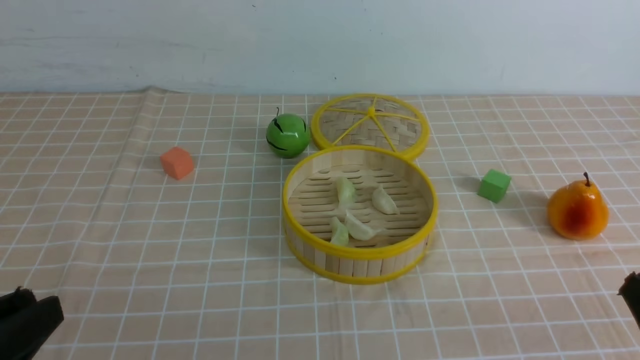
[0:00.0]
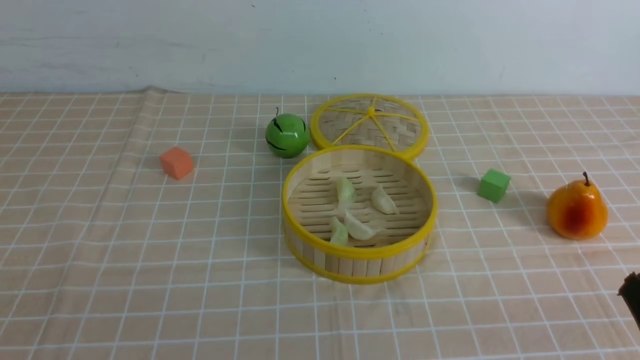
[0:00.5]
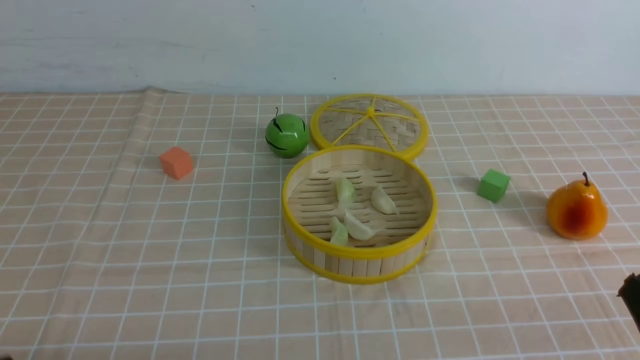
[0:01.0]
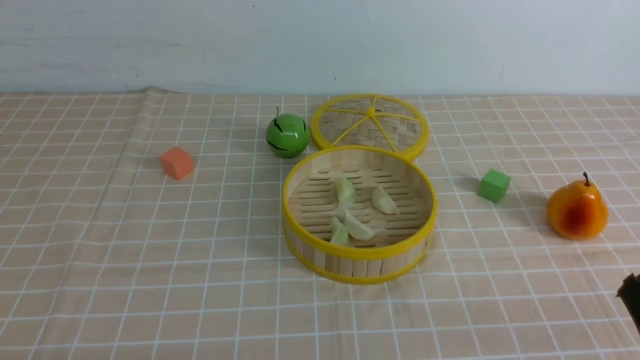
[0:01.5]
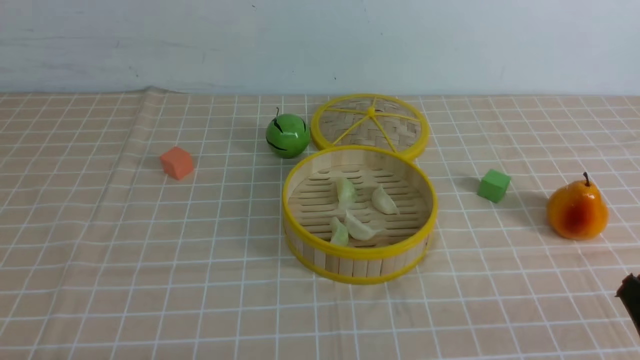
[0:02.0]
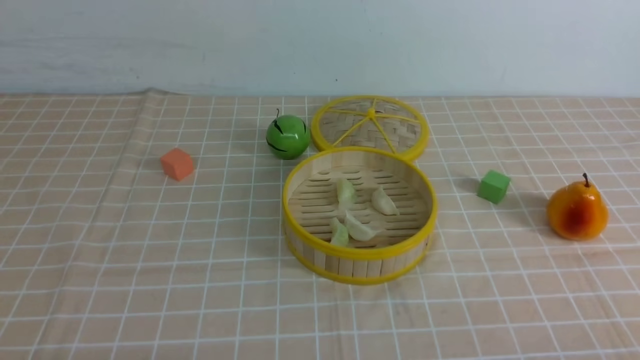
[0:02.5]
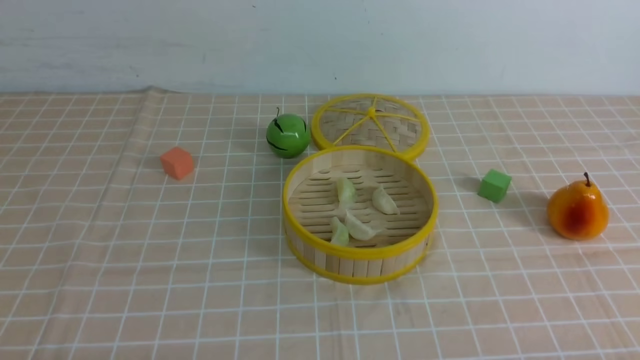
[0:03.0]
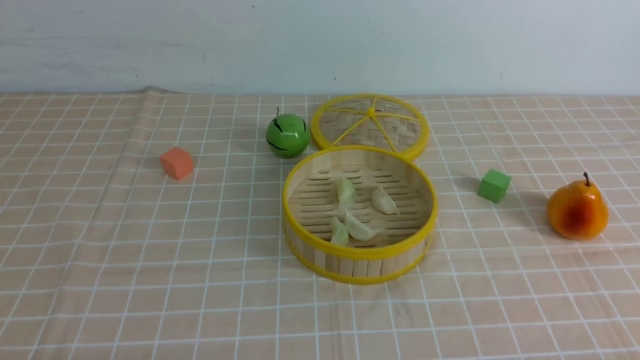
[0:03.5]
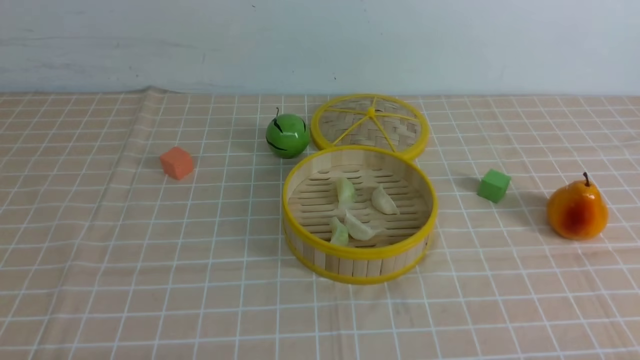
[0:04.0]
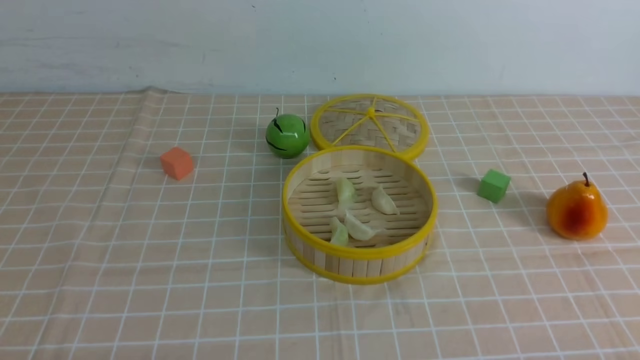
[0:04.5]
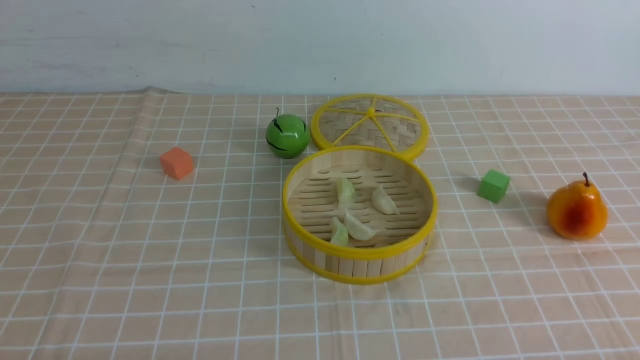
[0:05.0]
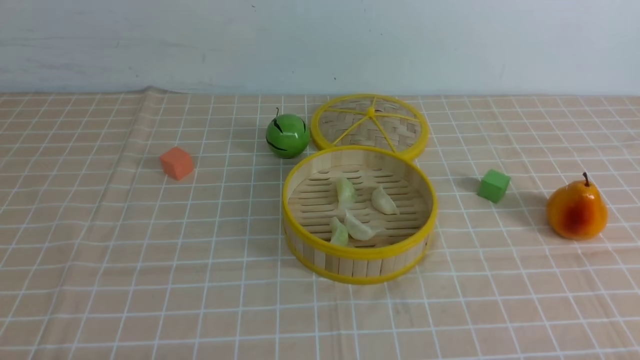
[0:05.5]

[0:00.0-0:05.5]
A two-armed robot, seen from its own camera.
Task of the whole recording: put the dumplings into the steamer on the table with the brown tablecloth.
0:00.0 to 0:02.0: The left gripper travels downward by about 10 cm, and closes.
0:03.5 to 0:05.5: Both grippers stay about where they are.

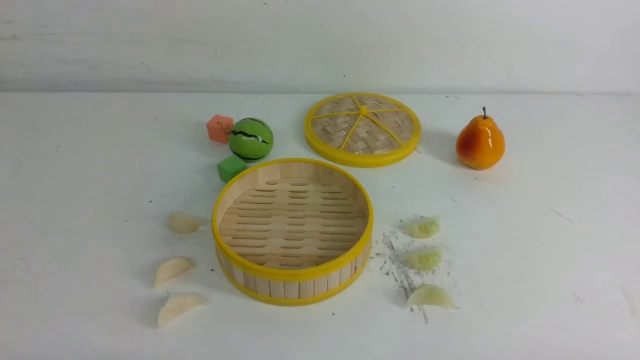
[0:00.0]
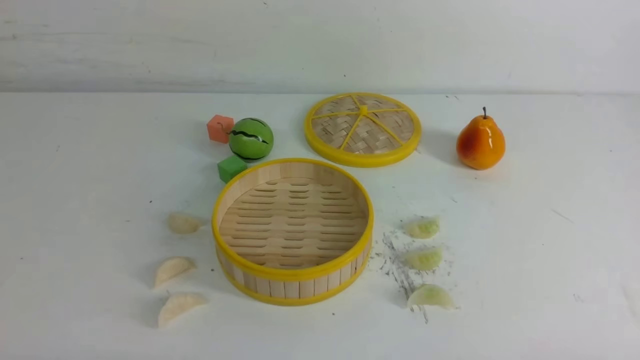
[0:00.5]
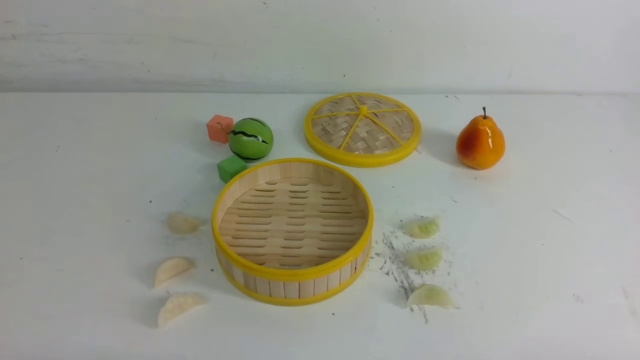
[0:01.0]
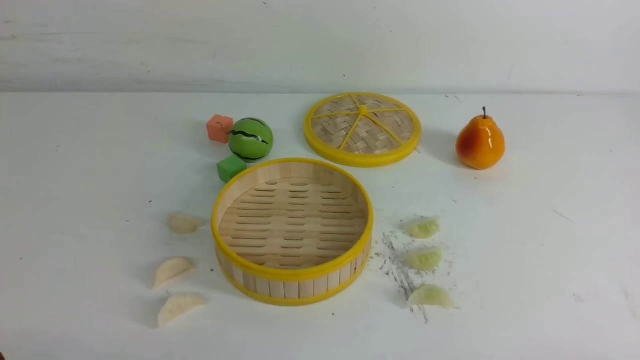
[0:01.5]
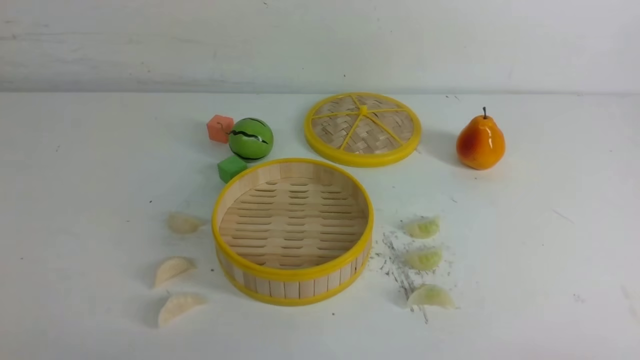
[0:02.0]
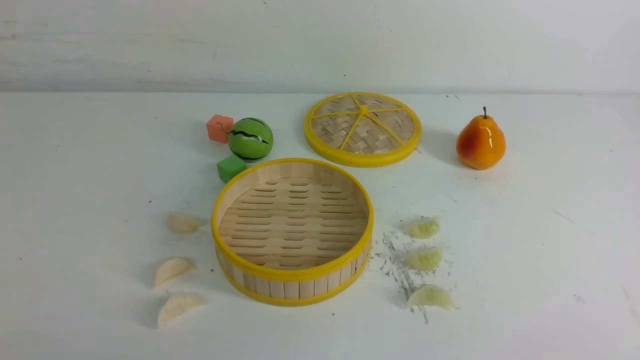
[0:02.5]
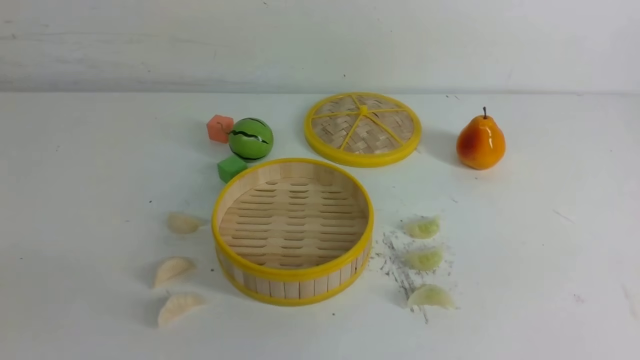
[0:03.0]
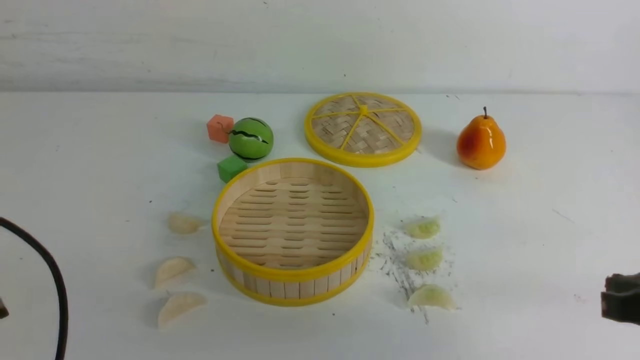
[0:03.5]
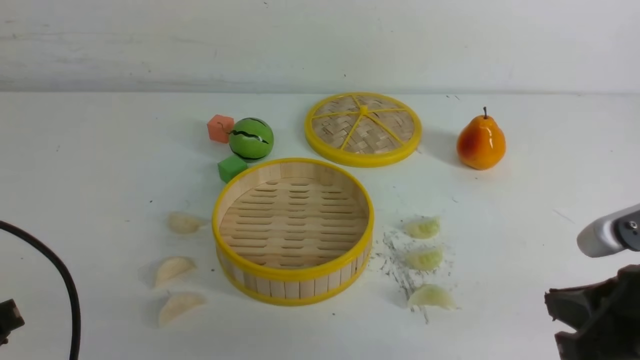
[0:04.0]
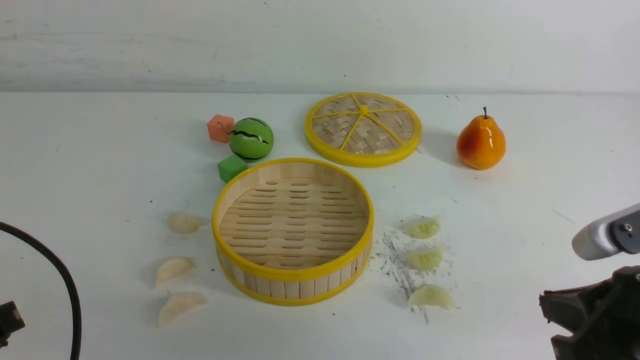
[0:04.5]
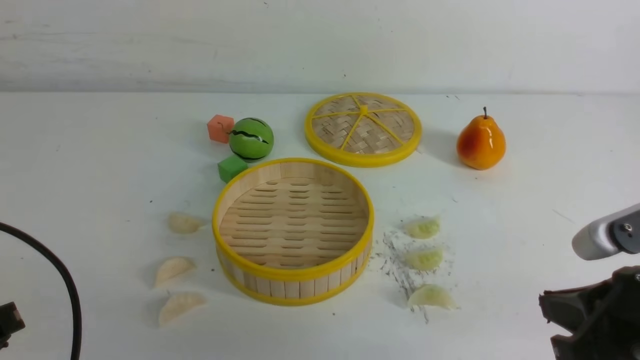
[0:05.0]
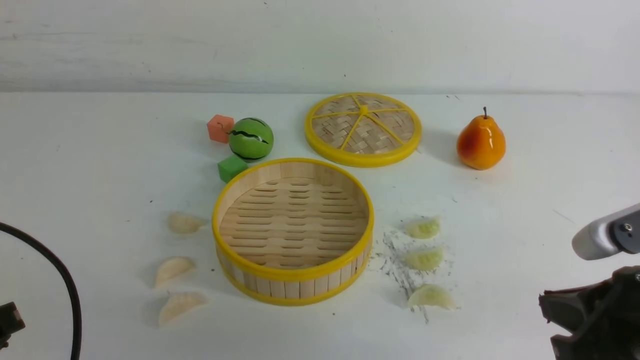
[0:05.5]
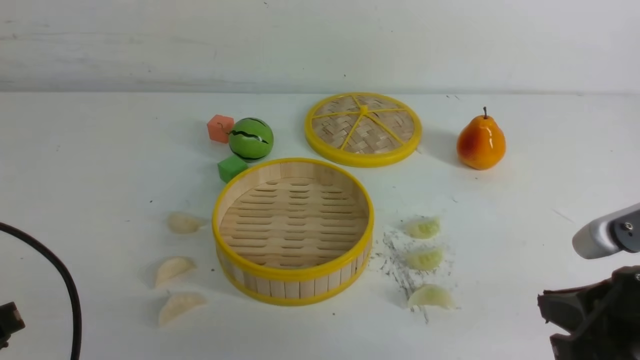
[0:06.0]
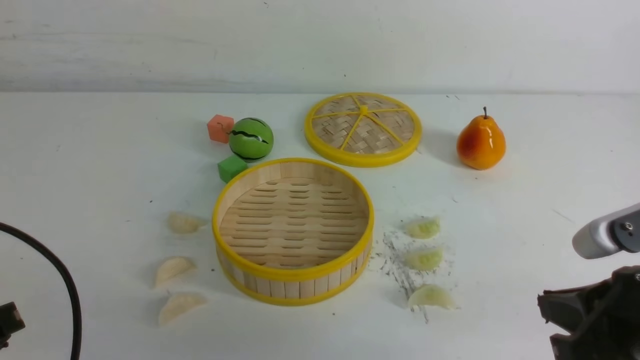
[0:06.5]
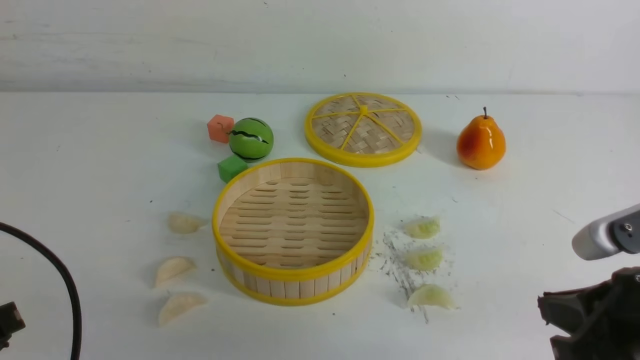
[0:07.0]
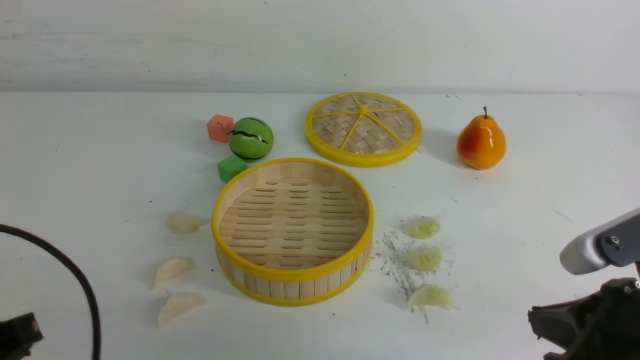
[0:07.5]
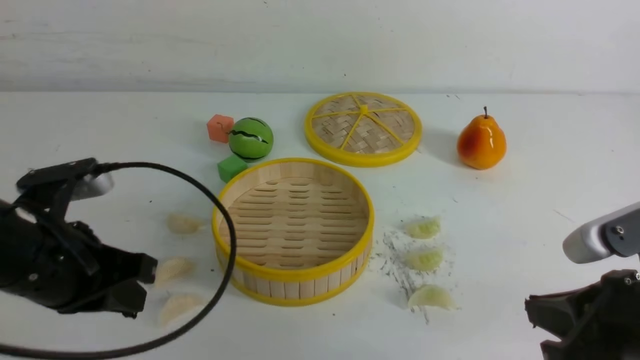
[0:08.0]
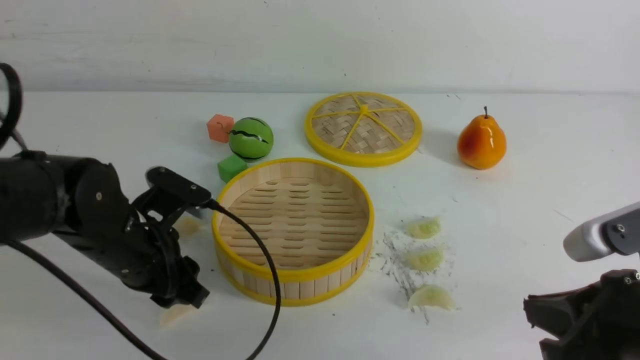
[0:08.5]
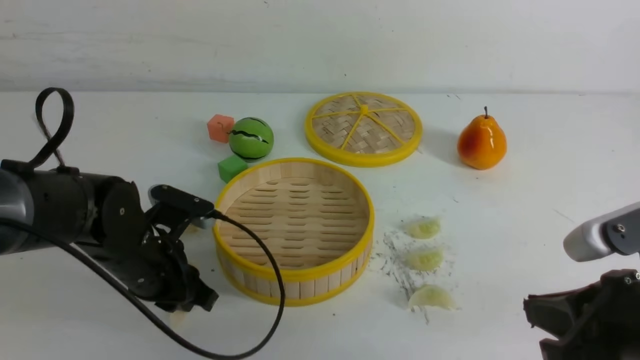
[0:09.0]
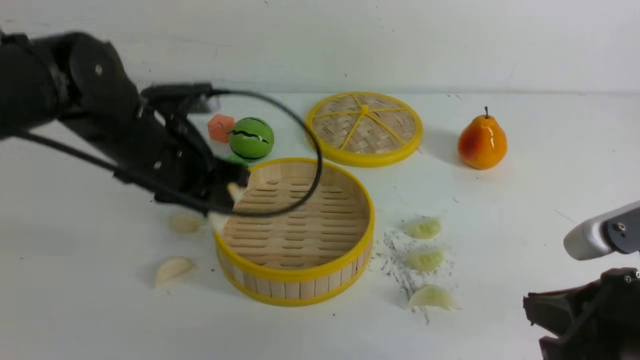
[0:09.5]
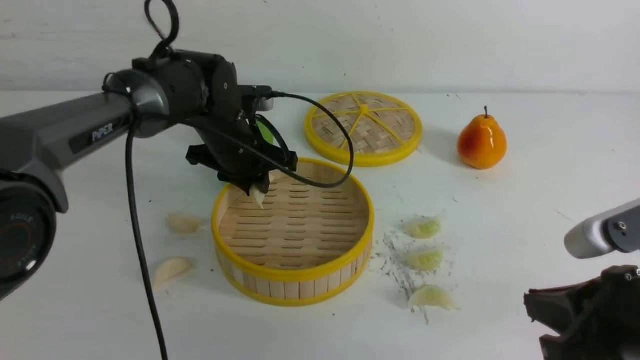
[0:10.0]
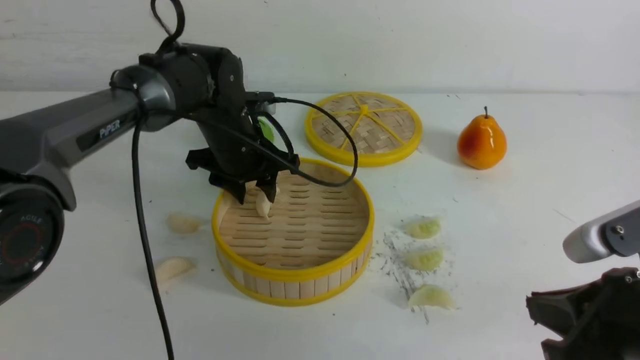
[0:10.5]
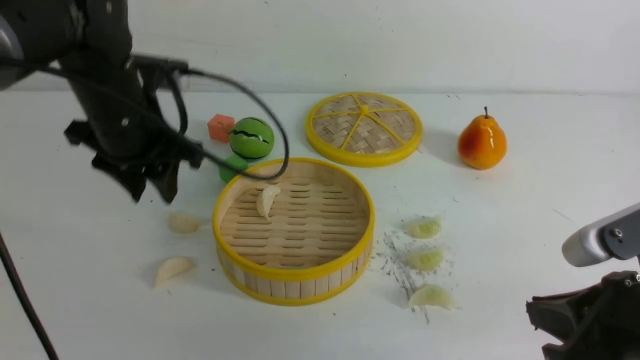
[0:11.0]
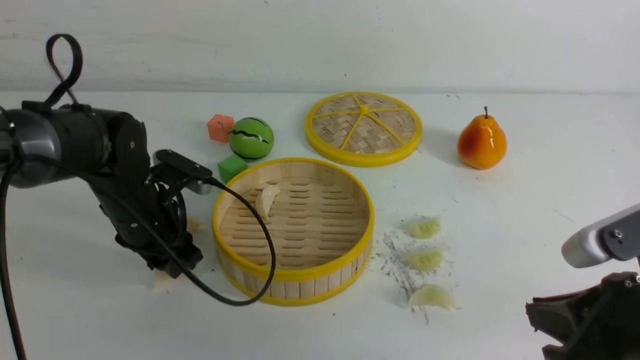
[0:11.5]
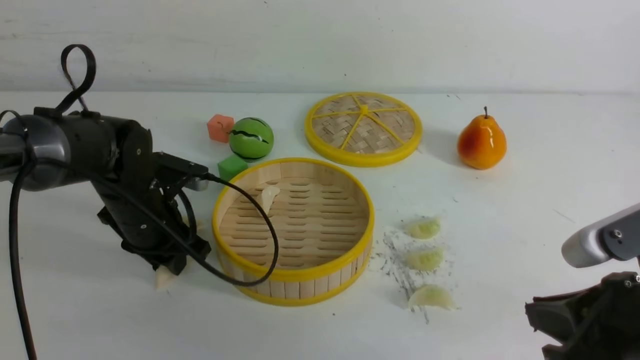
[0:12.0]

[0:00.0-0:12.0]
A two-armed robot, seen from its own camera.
Task of the whole recording: put the dumplings into the steamer on the white table.
Step, 0:00.0 to 0:09.0: use the left arm to grab a dumpling.
Step, 0:09.5 to 0:10.0: use the left arm to put the dumpling into the steamer.
Step, 0:11.0 to 0:12.0: use the left arm to grab a dumpling.
0:02.0 to 0:04.0: The left gripper moves forward, roughly 5 cm; the right gripper goes about 15 cm forward and to the left.
0:04.0 to 0:06.0: The two grippers keep their place.
0:06.0 to 0:08.0: The left gripper moves forward and to the right, about 10 cm.
0:08.0 to 0:10.0: The left gripper is displaced forward and to the right by about 25 cm, and opens and closes again.
0:10.0 to 0:12.0: The left gripper shifts about 10 cm to the left and backward, and opens, then closes again.

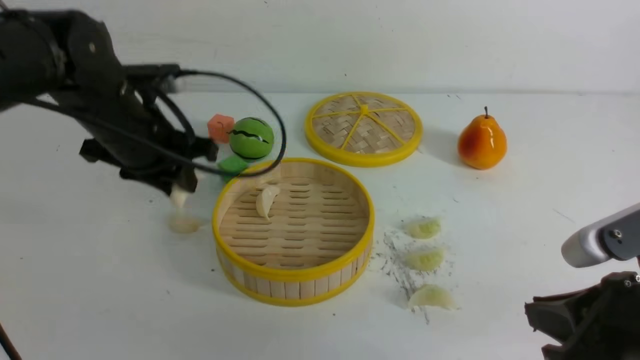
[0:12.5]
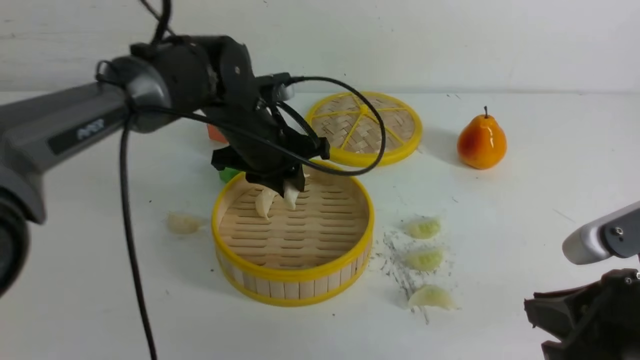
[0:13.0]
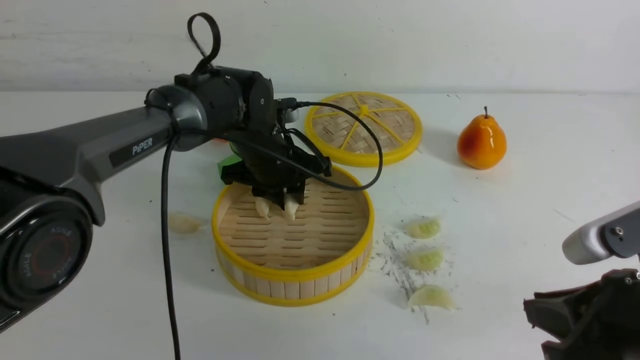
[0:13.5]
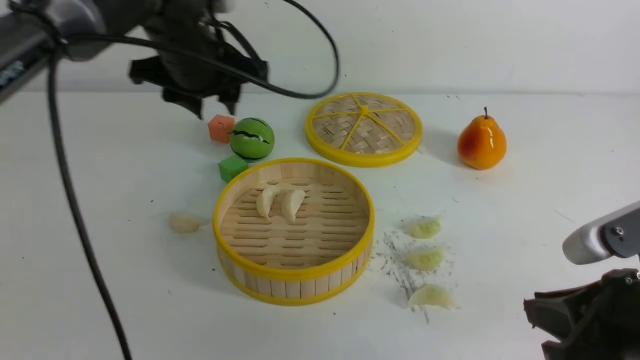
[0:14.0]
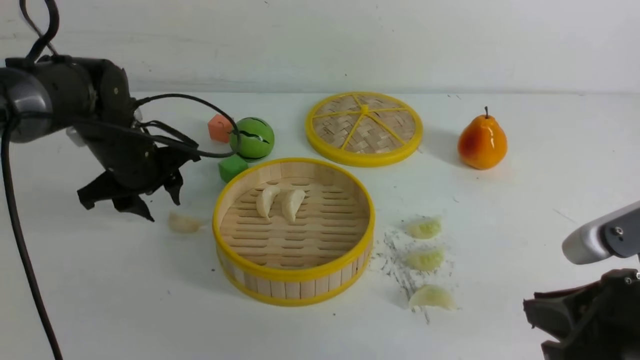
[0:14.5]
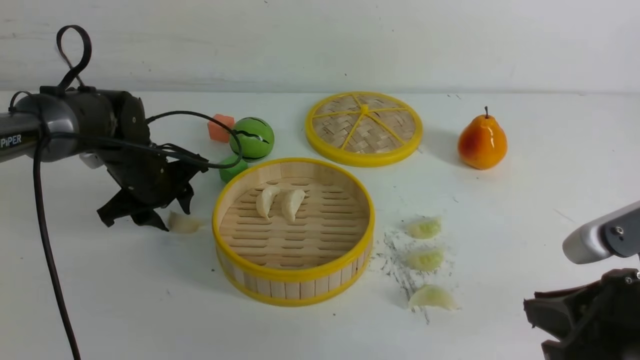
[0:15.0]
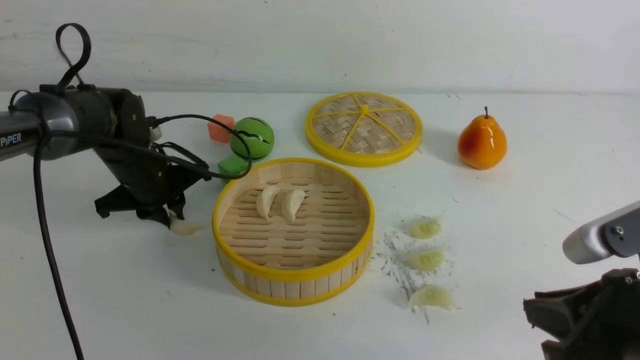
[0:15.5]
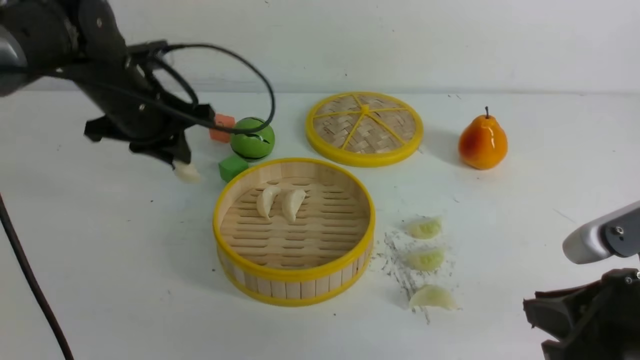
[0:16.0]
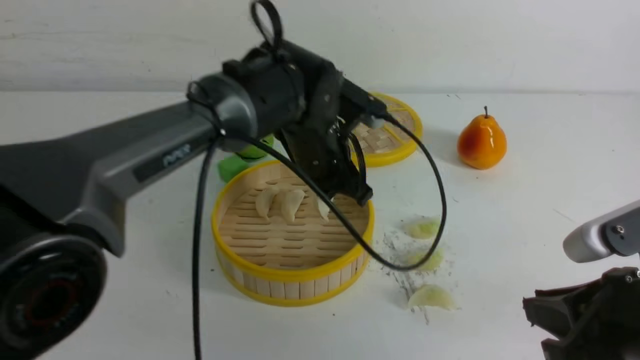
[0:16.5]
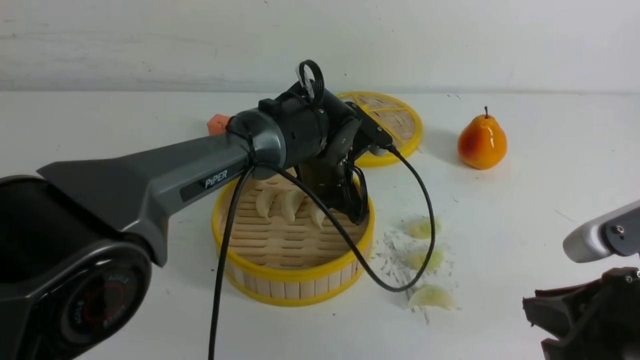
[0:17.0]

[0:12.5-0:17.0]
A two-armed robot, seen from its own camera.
Task of the whole recording: put the dumplings into the steamer on the white table.
Step, 0:12.5 to 0:13.5: use the left arm to put the dumpling into the steamer.
Step, 0:14.0 to 0:15.5: use the left arm to grab a dumpling.
0:12.5 to 0:14.5: The left gripper moves downward, some 5 cm, moves approximately 10 cm to the right and comes back, and opens.
0:14.5 to 0:17.0: The left gripper is displaced to the right by about 20 cm, and closes up.
